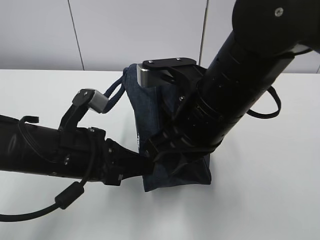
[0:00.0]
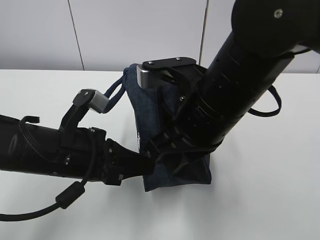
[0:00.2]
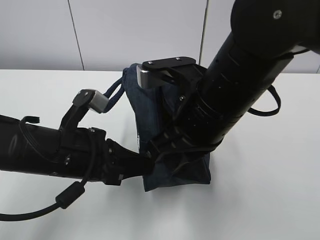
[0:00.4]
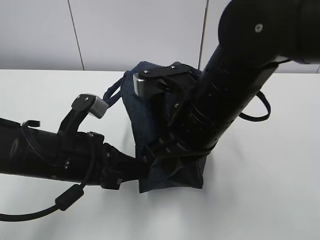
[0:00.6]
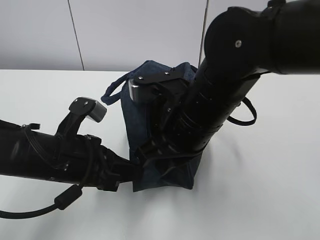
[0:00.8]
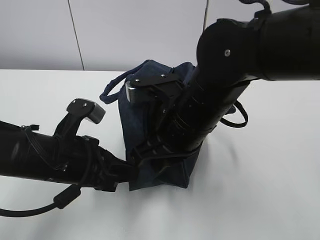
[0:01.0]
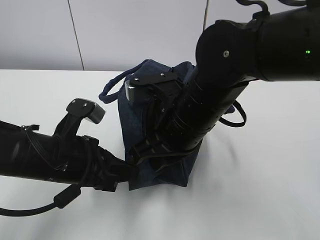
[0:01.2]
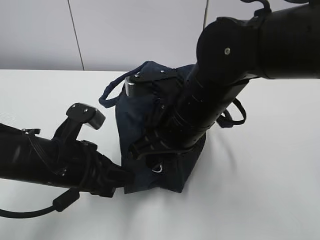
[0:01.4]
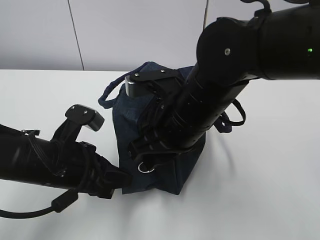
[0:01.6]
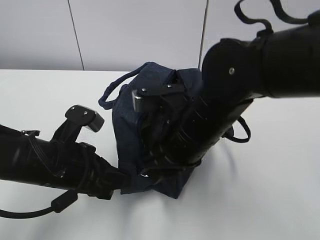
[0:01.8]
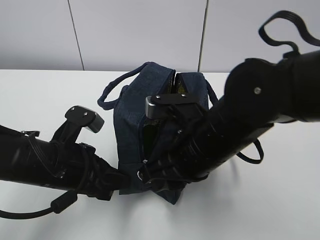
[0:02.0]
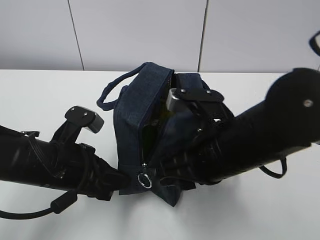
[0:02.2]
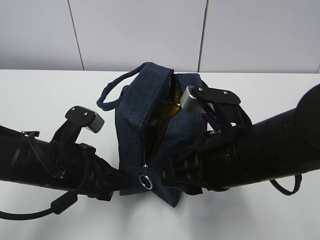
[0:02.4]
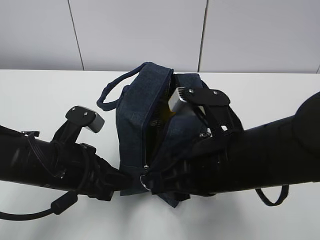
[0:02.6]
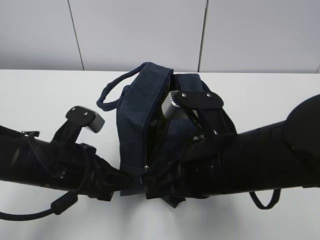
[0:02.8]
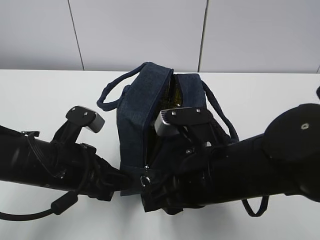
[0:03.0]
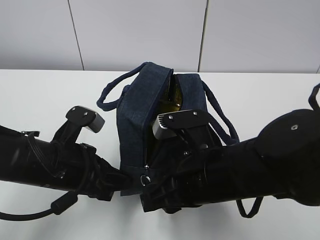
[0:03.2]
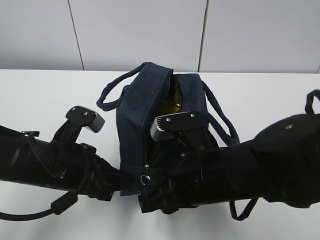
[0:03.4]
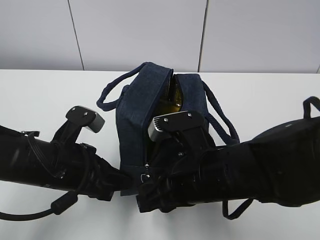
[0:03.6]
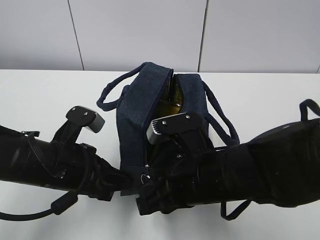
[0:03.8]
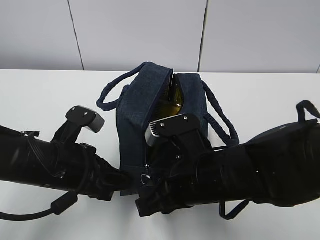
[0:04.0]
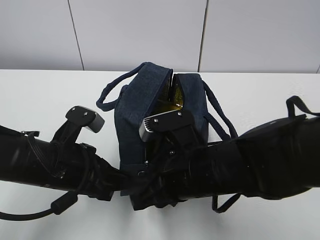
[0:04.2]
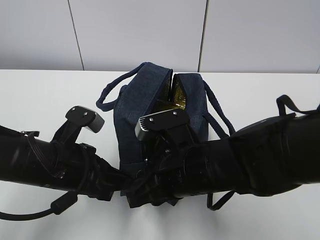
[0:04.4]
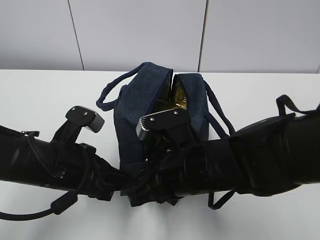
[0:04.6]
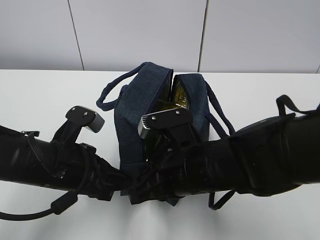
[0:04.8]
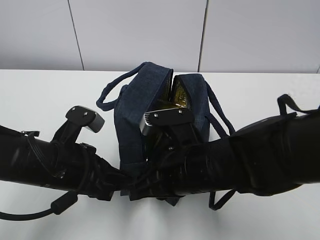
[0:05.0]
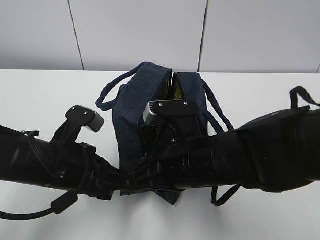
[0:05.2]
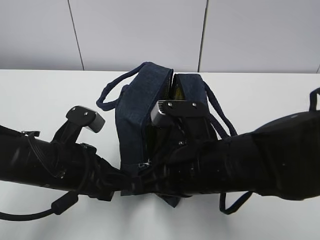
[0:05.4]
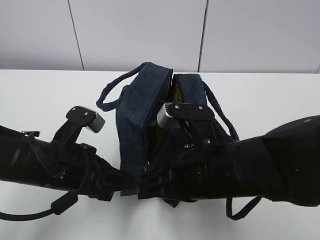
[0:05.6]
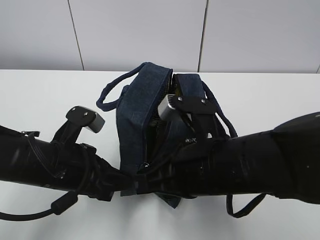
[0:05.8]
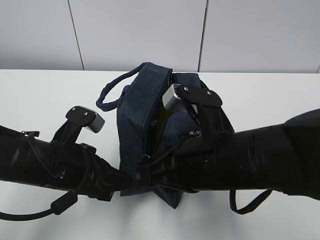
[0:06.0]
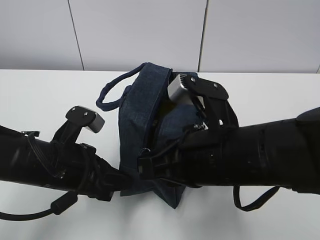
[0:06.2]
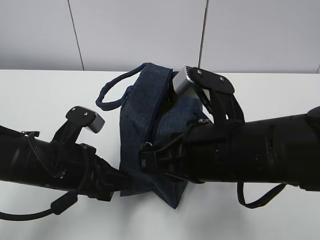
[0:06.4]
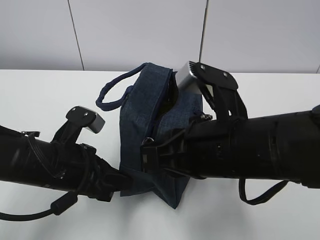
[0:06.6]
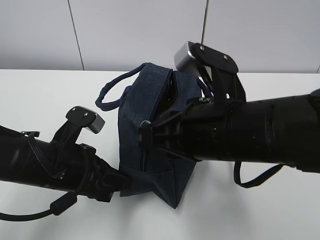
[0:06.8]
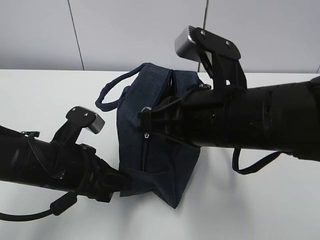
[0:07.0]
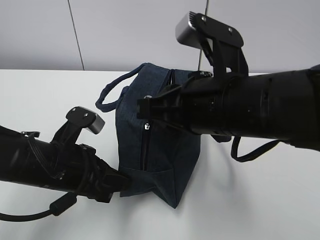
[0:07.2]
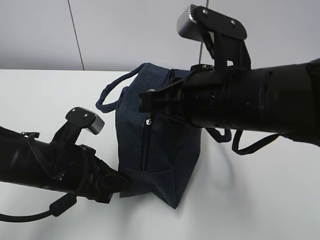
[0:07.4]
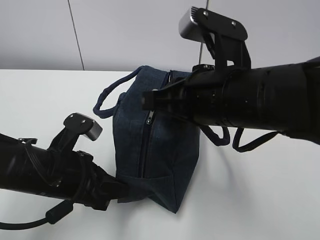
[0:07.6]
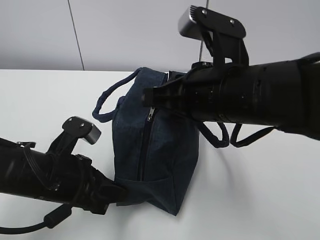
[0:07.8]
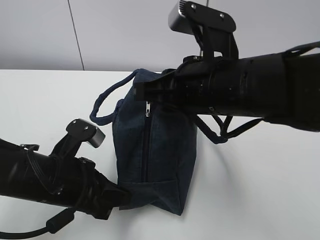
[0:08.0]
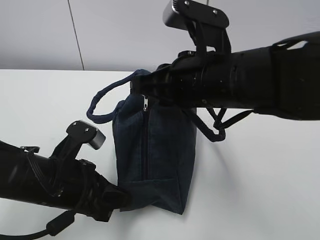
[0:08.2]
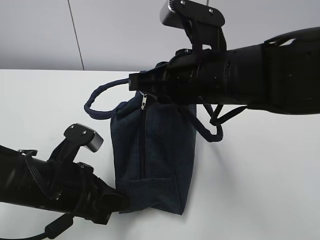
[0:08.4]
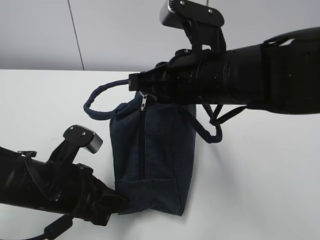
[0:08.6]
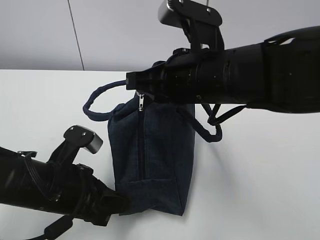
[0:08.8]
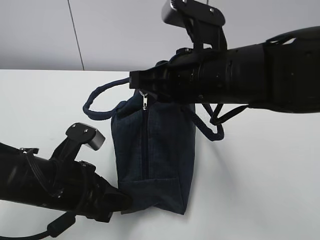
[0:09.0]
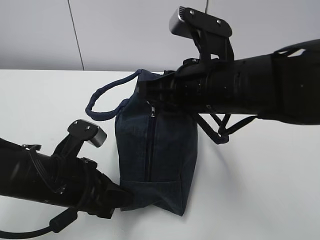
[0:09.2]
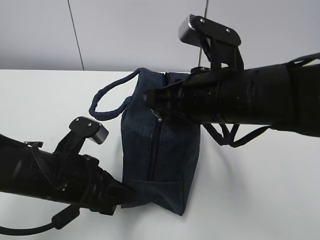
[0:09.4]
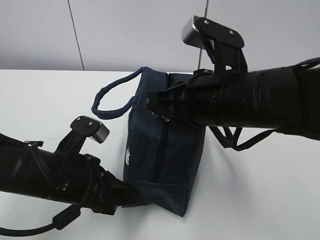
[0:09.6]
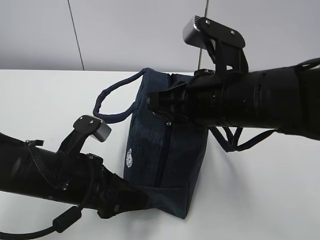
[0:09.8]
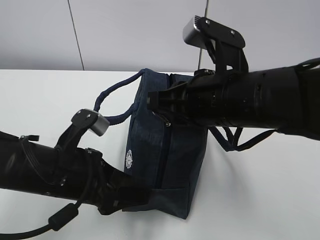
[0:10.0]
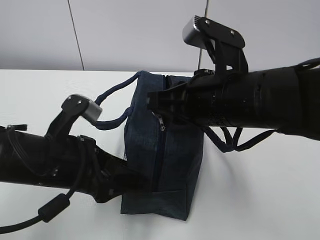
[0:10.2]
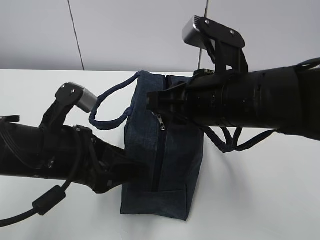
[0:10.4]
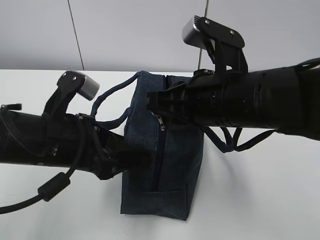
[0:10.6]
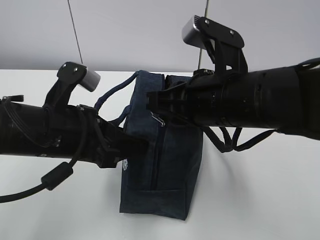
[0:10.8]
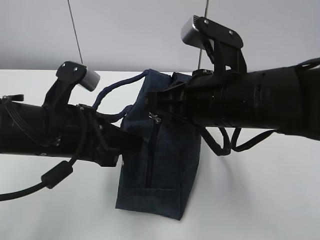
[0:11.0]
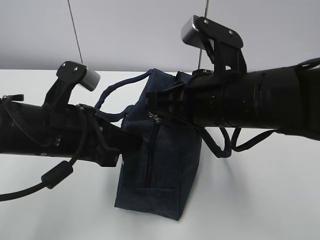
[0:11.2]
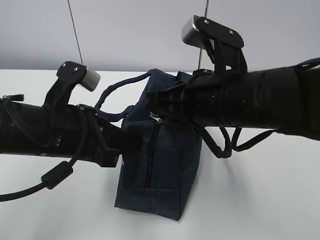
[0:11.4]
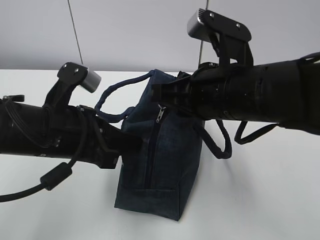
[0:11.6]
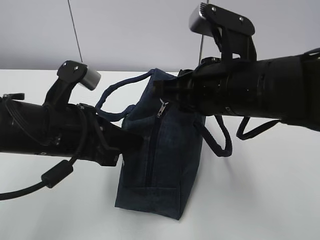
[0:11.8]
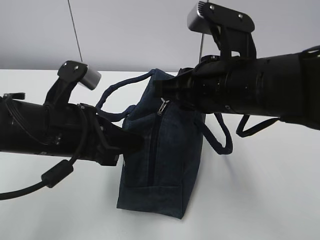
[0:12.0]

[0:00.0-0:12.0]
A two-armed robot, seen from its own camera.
0:00.0 to 0:01.6: The right gripper ends up about 5 cm from where it was, and opens.
0:01.6 to 0:03.0: The right gripper shifts approximately 5 cm backward.
0:03.0 to 0:04.4: The grippers make only small movements.
0:04.4 to 0:06.0: The right gripper travels upward by roughly 5 cm, and closes its fingers.
0:06.0 to 0:07.6: The right gripper shifts some 5 cm upward.
0:09.0 to 0:10.4: The left gripper moves upward, some 5 cm, and opens.
0:10.4 to 0:12.0: The left gripper closes.

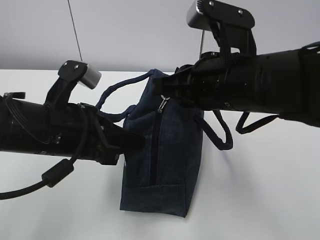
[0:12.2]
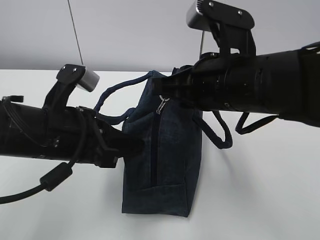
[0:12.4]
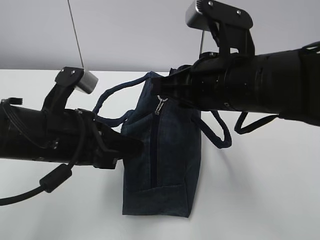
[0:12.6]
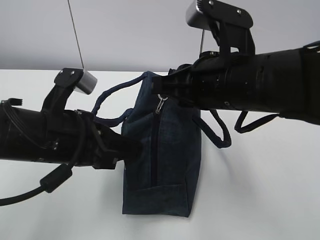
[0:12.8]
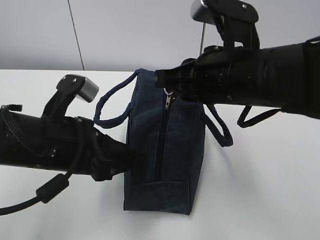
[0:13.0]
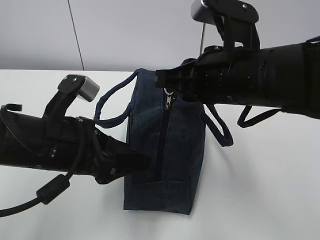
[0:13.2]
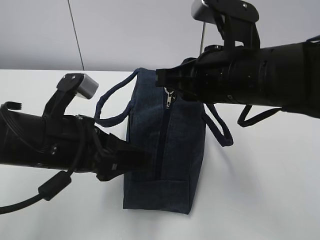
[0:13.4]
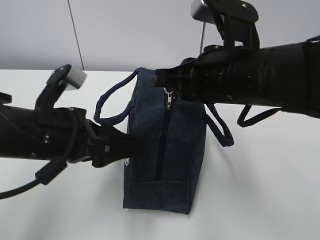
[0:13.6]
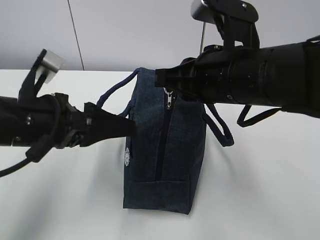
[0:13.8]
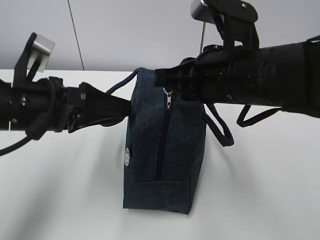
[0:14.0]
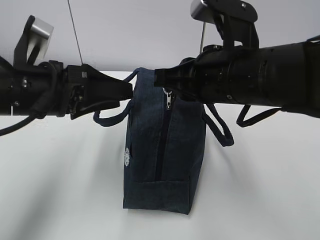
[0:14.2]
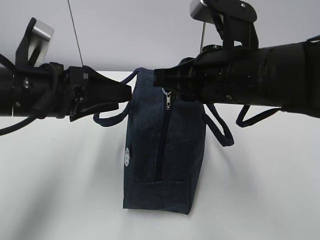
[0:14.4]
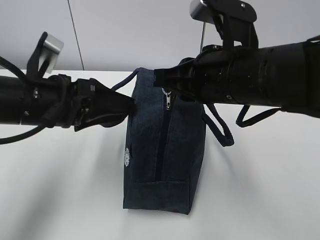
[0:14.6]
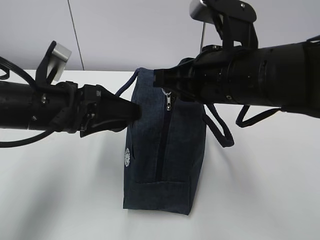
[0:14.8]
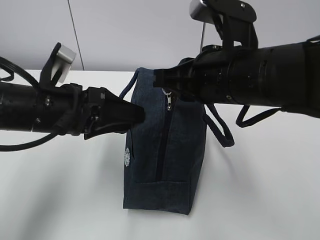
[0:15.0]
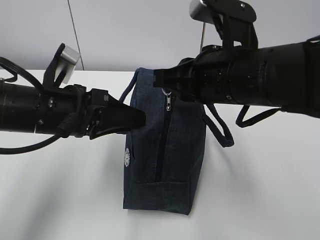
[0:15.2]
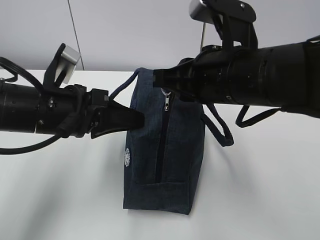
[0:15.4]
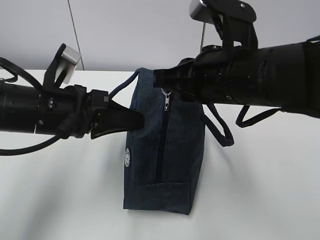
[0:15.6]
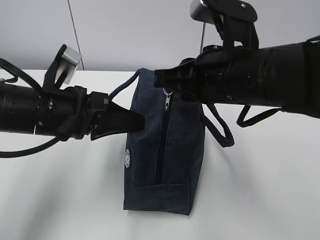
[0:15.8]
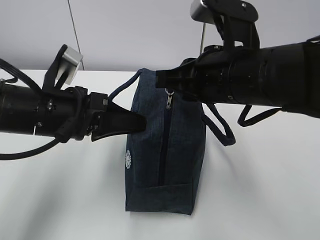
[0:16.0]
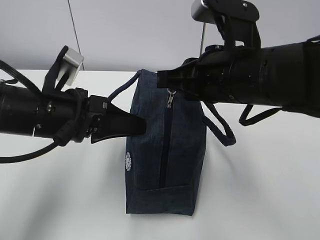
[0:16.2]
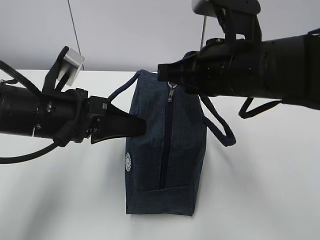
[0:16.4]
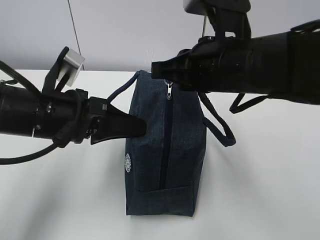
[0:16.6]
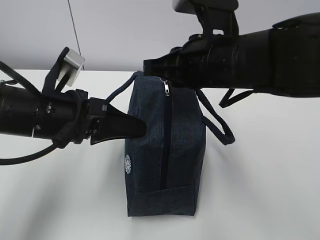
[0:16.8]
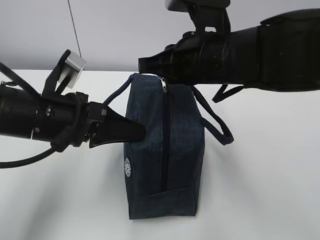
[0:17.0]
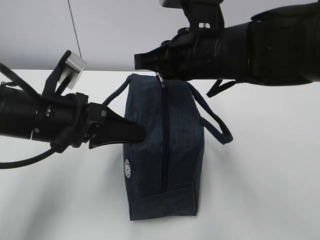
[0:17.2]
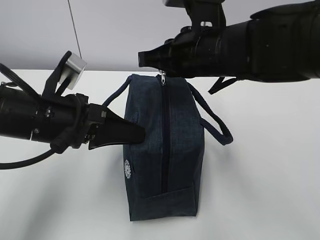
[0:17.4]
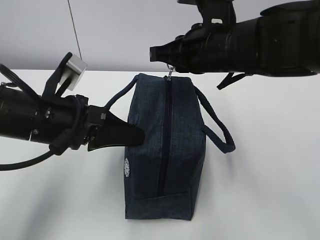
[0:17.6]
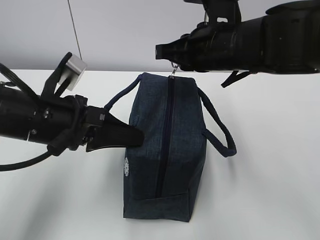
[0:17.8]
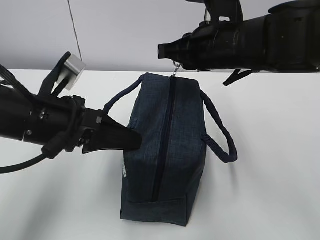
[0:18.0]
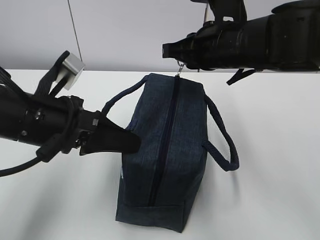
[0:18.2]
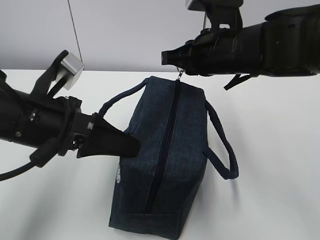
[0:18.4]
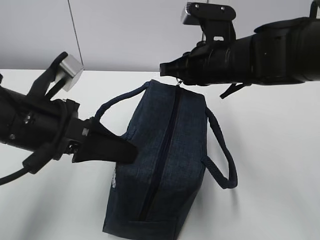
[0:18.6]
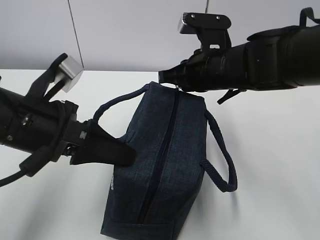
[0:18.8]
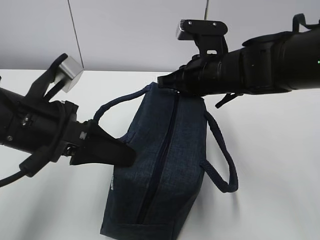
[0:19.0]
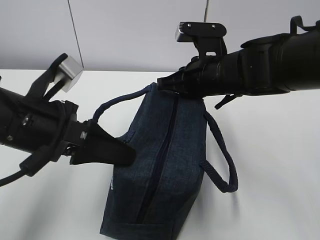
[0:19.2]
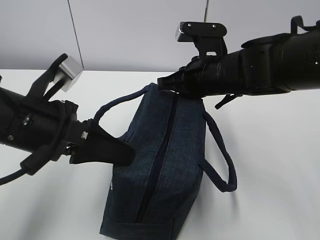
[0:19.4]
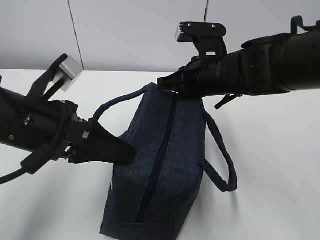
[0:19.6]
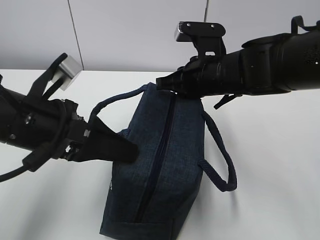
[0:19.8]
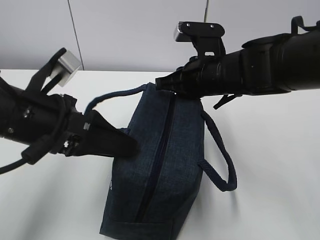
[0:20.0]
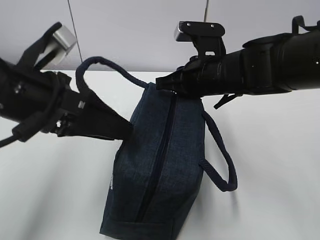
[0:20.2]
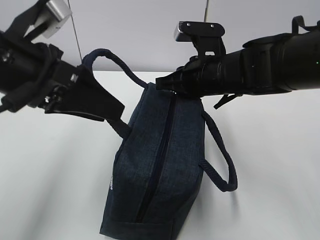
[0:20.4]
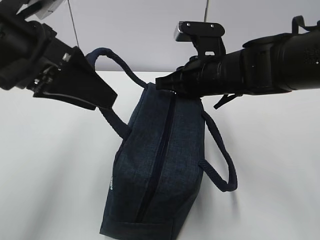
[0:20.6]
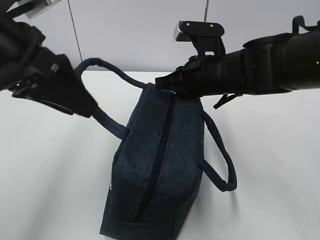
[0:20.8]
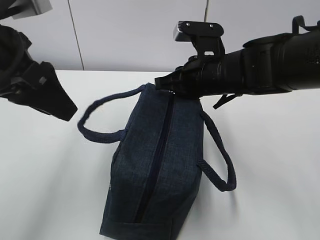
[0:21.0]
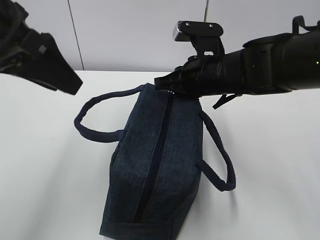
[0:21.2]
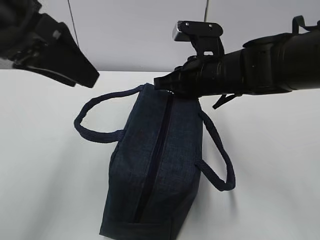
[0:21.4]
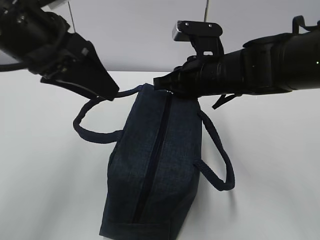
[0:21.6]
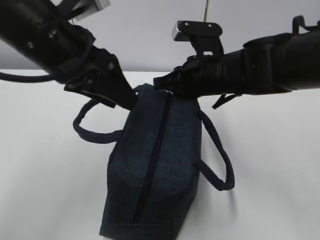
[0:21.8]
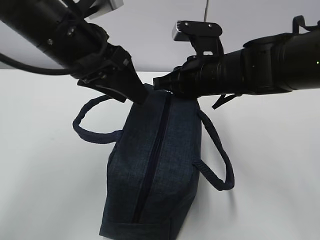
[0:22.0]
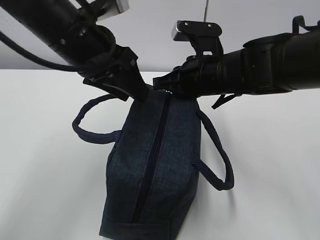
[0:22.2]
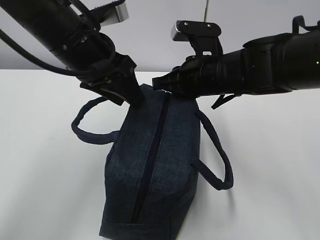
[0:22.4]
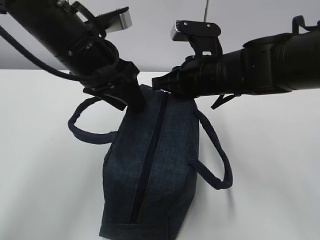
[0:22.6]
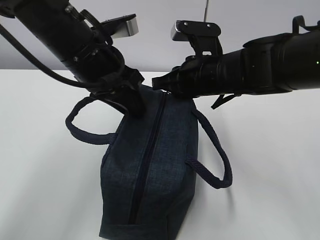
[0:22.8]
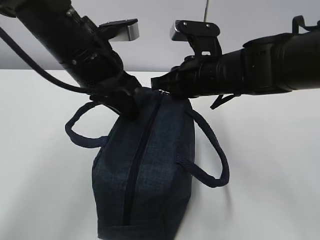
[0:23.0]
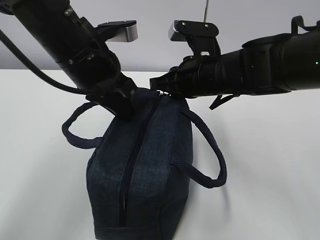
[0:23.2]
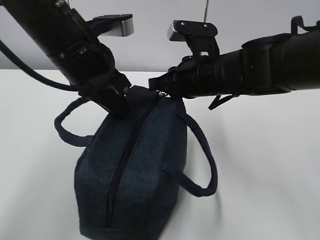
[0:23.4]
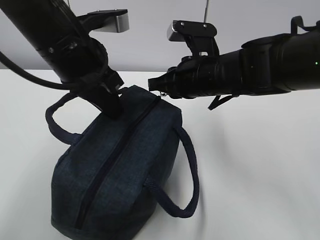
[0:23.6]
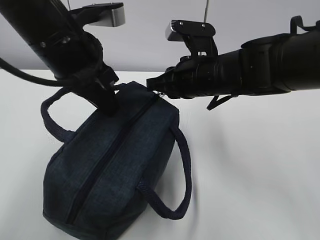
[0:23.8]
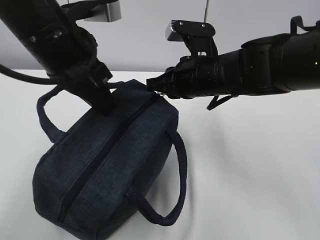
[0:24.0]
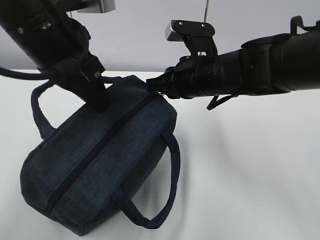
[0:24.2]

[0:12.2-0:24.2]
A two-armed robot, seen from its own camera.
Step, 0:13.2 to 0:14.8: Grab the lunch bag with your left hand.
0:12.2 to 0:13.8: The left gripper opens.
0:13.8 to 0:15.2: The left gripper closes its fingers.
0:15.2 to 0:16.6: There are only small adjustments of the grippers.
0:16.6 to 0:18.2: The right gripper travels forward by roughly 5 cm.
0:18.2 to 0:19.8: The left gripper opens up. Meanwhile the right gripper moves downward, some 5 cm.
0:19.8 to 0:21.2: The left gripper goes roughly 10 cm upward.
0:21.2 to 0:22.6: The left gripper is displaced to the right, downward and forward by roughly 15 cm.
0:22.6 to 0:24.2: The left gripper shifts approximately 5 cm upward, and closes up.
